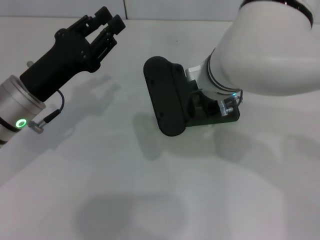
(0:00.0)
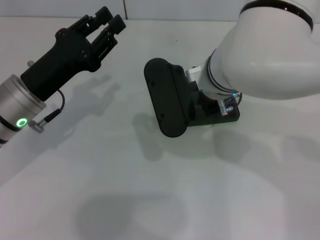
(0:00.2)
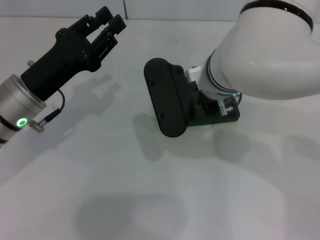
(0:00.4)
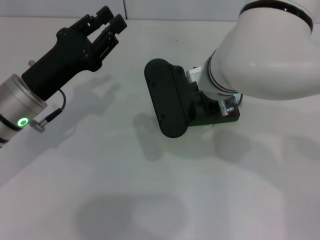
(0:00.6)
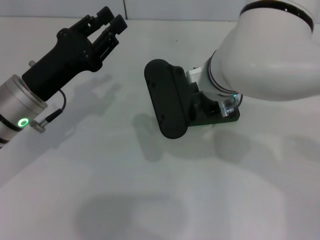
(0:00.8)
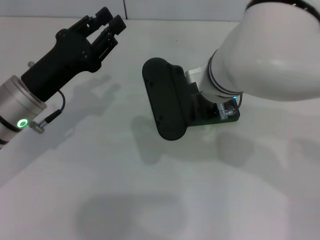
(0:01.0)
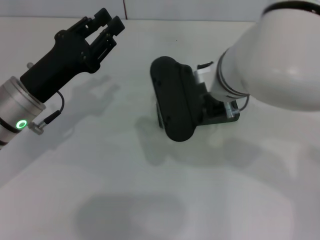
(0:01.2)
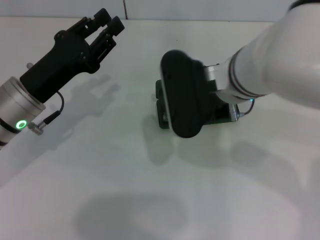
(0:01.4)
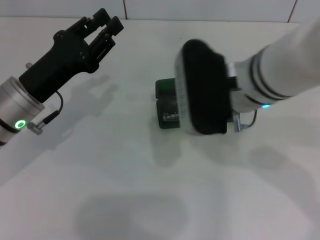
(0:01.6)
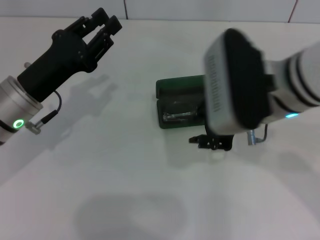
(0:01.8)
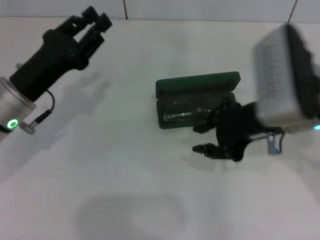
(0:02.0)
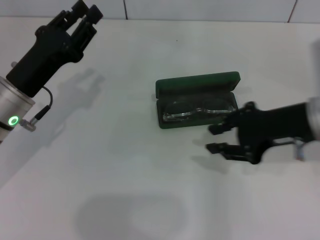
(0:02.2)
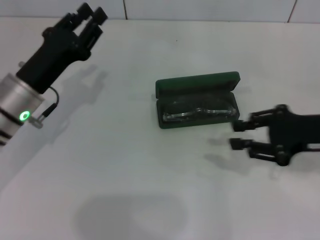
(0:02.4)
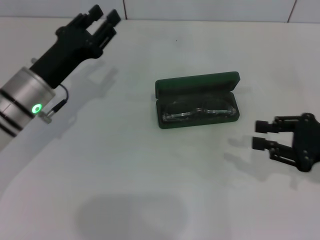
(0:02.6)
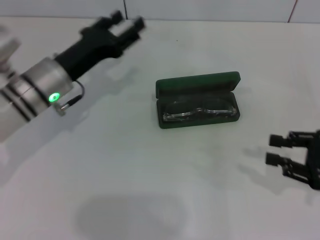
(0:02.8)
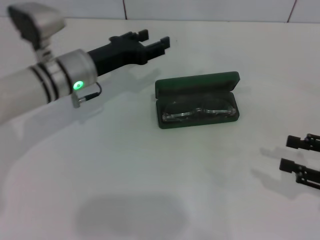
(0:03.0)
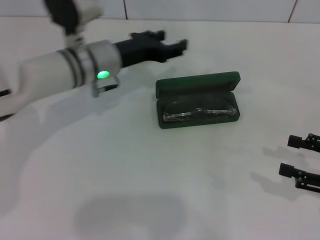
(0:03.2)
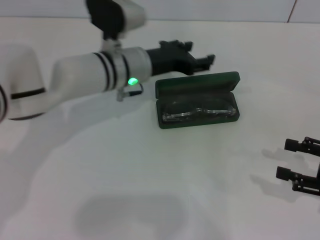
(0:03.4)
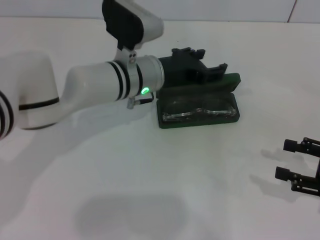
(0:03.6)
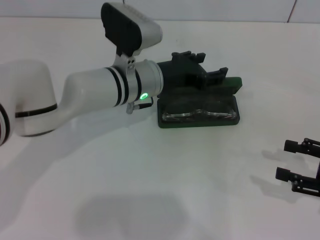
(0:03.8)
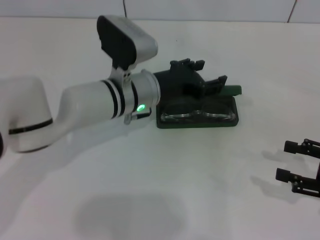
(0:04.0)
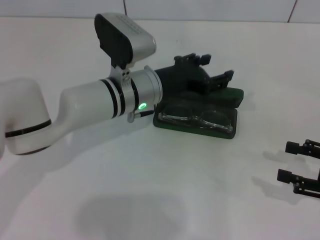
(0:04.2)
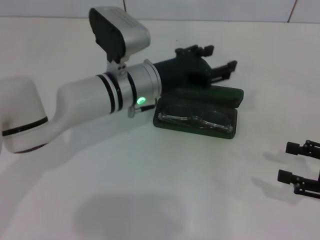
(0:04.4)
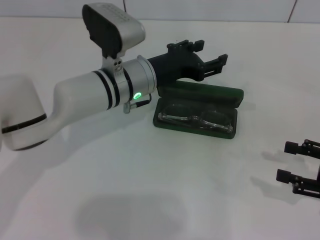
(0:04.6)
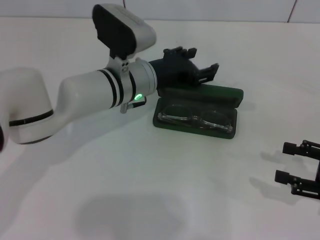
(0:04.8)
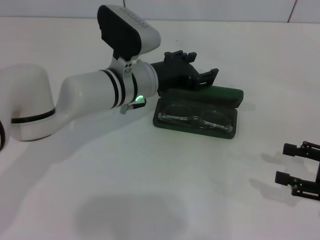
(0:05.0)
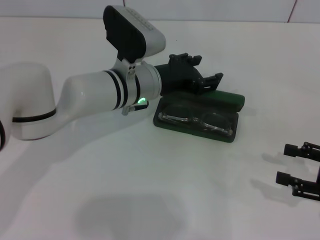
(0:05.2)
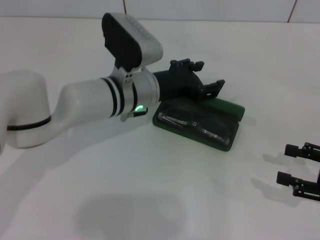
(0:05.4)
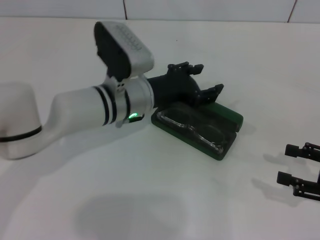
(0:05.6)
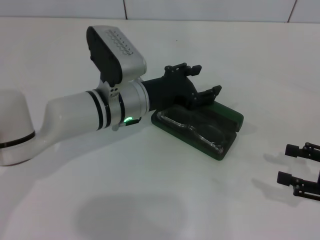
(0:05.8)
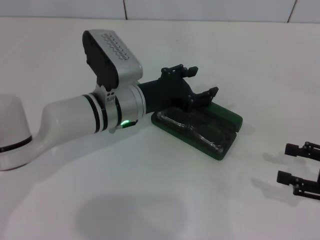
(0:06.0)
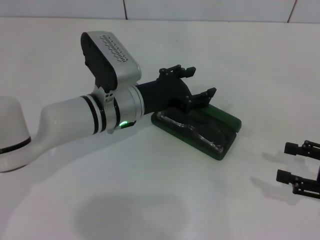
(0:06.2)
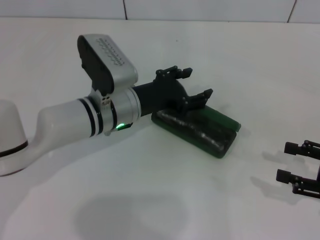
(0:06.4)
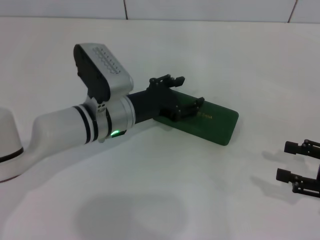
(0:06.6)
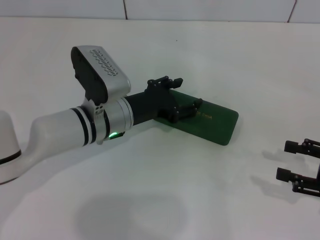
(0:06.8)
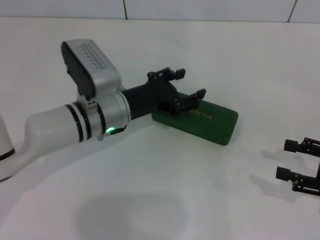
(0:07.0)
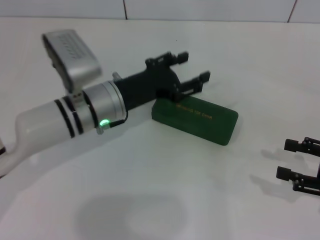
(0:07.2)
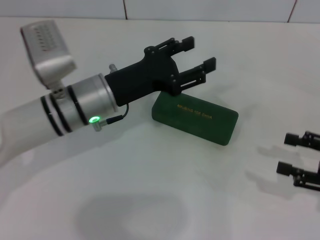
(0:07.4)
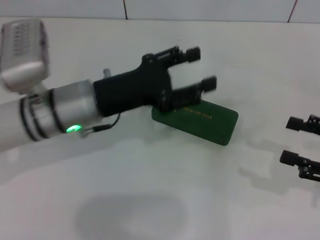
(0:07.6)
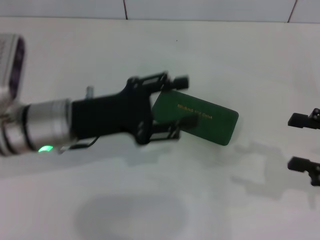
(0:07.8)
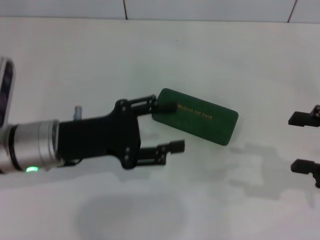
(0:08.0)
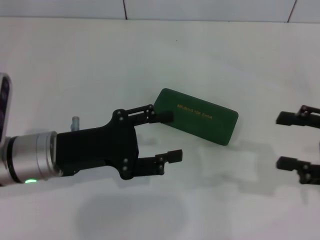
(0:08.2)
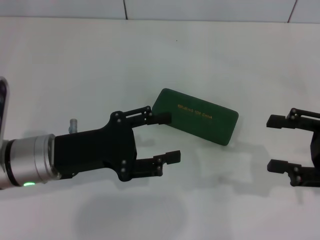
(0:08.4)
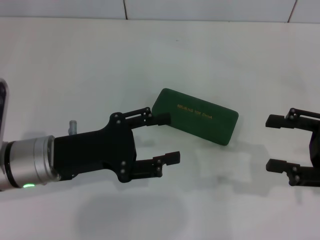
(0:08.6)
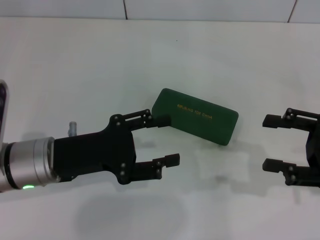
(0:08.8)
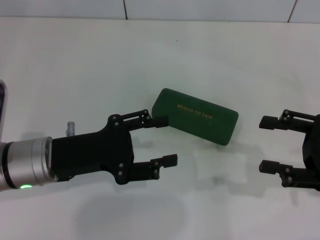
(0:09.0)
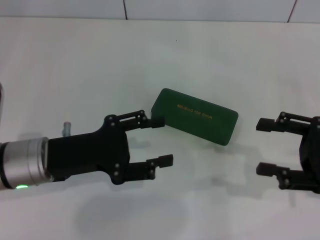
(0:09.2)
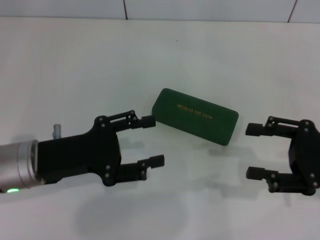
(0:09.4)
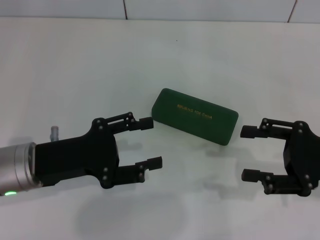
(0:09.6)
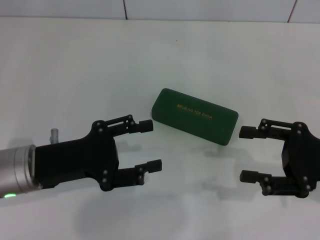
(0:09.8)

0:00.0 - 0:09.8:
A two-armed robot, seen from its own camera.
Step, 0:01.0 - 0:06.4: Close the glasses case with your left hand.
0:00.0 - 0:01.4: The grippers move only a little.
0:01.4 - 0:02.8: The right gripper travels to the right and downward by roughly 30 cm; the left gripper is displaced forward by some 5 cm.
0:02.8 - 0:04.2: The left gripper goes about 10 cm to the right, while the right gripper opens its fingers.
0:04.2 - 0:07.0: The grippers stay close to where they were, moving slightly.
0:07.0 - 0:08.4: The left gripper travels to the left and backward by some 10 cm, while the right gripper is displaced upward by approximately 5 cm.
0:08.4 - 0:09.8: The grippers make only small movements.

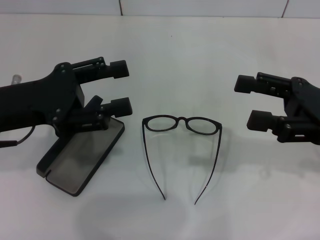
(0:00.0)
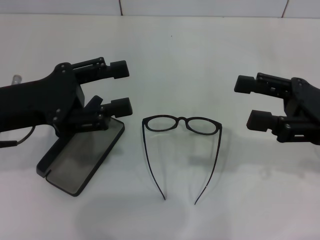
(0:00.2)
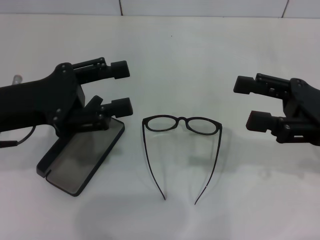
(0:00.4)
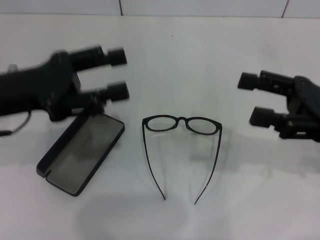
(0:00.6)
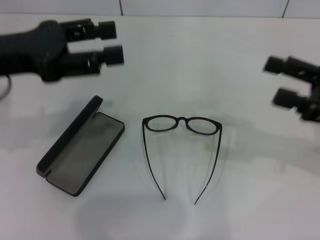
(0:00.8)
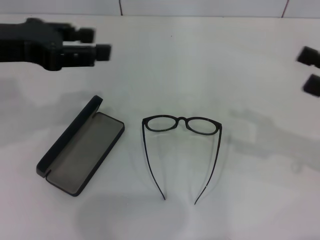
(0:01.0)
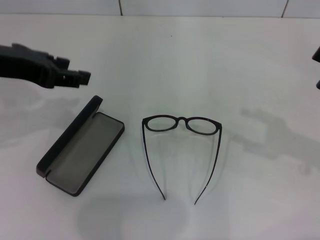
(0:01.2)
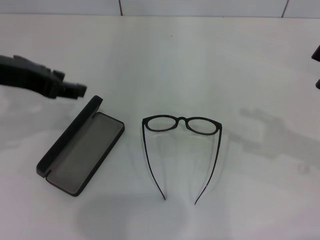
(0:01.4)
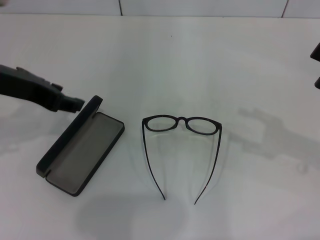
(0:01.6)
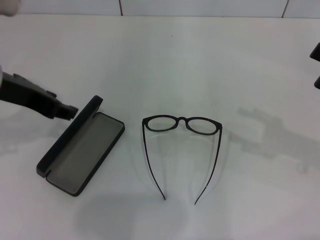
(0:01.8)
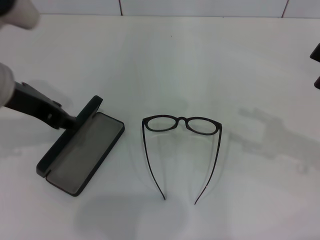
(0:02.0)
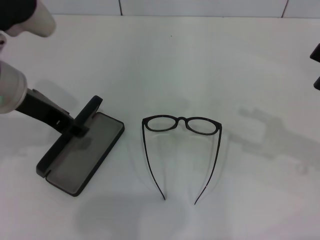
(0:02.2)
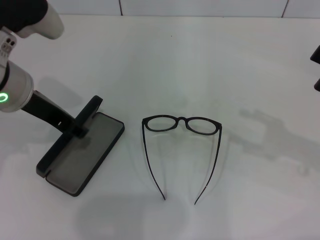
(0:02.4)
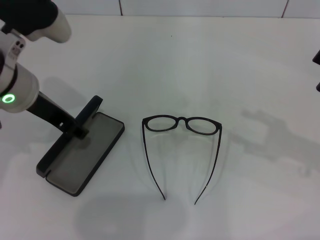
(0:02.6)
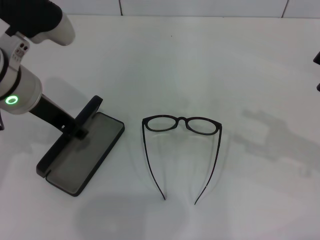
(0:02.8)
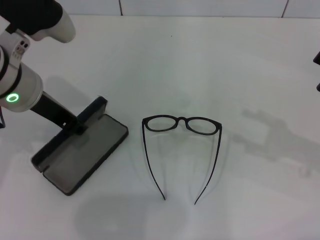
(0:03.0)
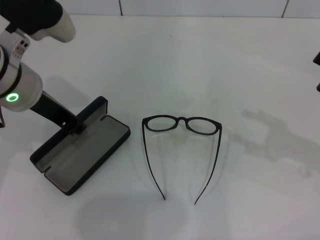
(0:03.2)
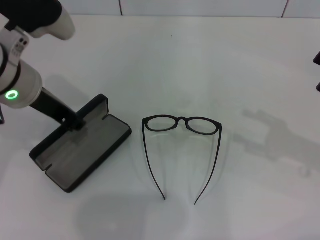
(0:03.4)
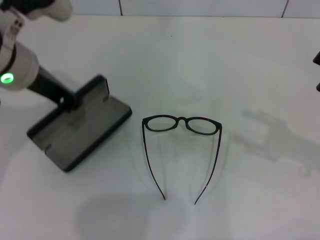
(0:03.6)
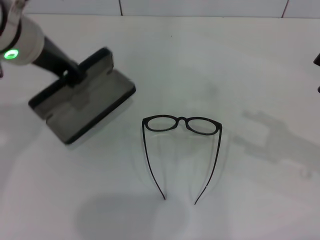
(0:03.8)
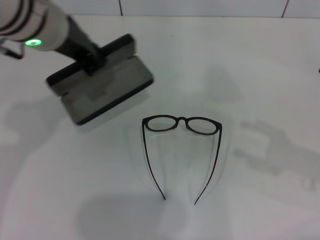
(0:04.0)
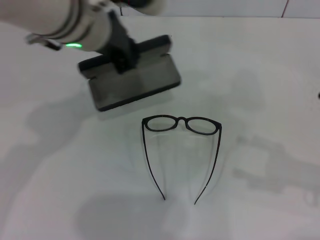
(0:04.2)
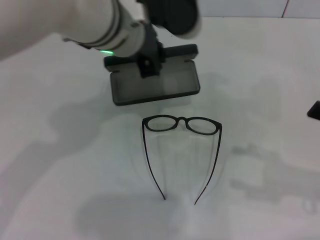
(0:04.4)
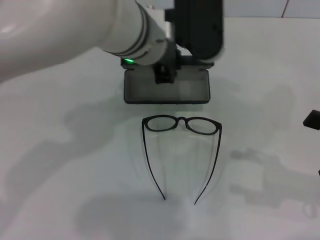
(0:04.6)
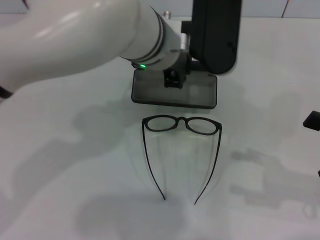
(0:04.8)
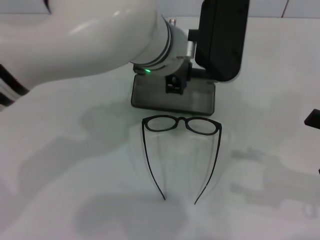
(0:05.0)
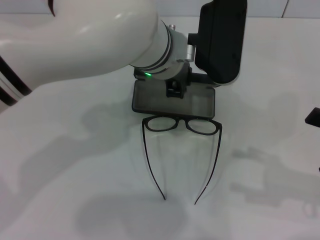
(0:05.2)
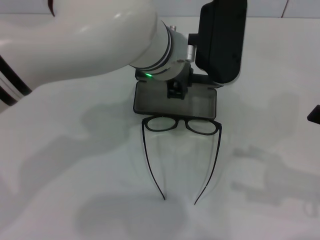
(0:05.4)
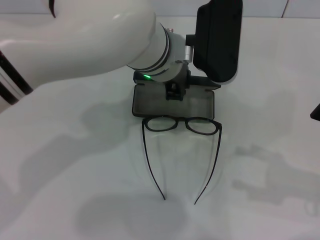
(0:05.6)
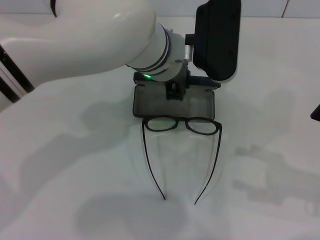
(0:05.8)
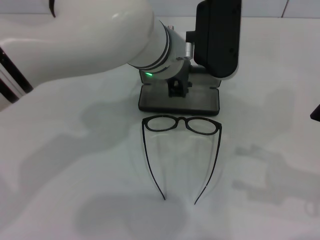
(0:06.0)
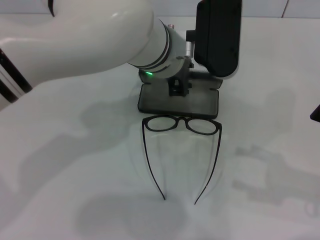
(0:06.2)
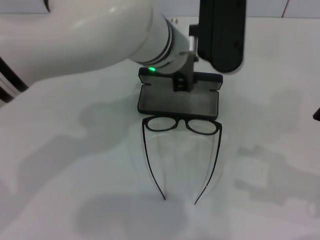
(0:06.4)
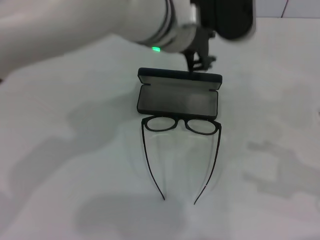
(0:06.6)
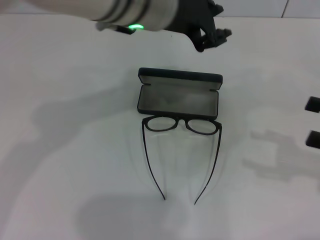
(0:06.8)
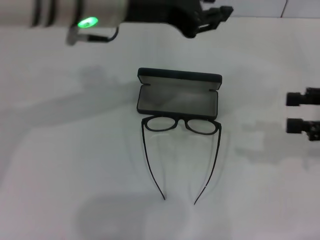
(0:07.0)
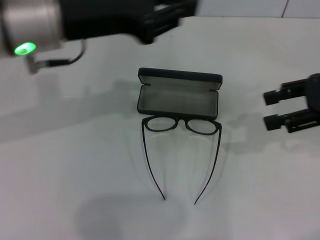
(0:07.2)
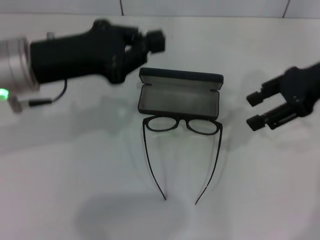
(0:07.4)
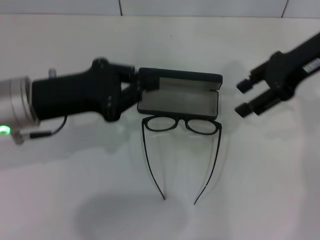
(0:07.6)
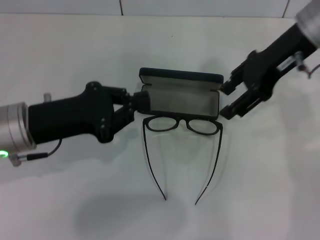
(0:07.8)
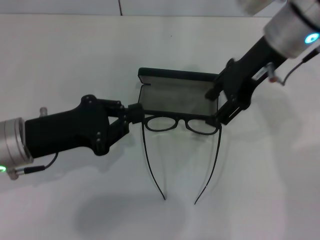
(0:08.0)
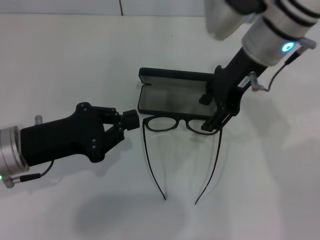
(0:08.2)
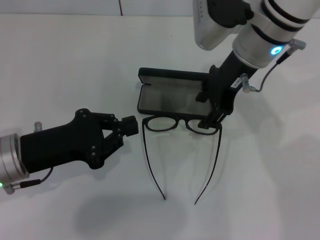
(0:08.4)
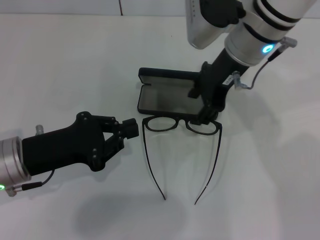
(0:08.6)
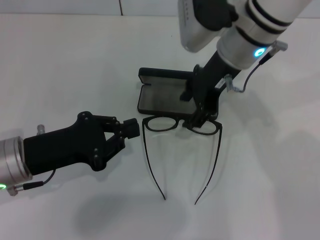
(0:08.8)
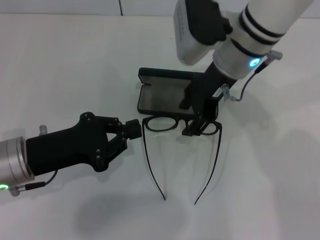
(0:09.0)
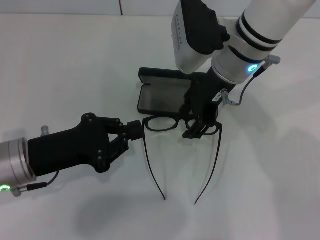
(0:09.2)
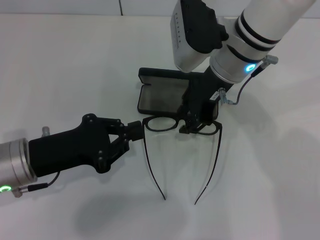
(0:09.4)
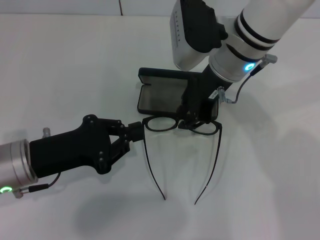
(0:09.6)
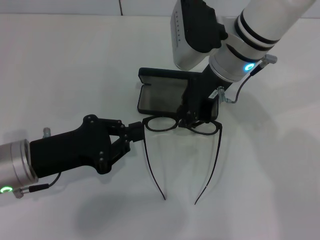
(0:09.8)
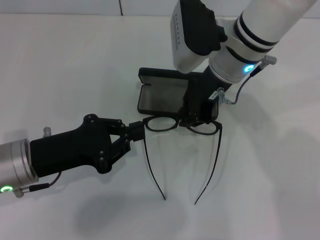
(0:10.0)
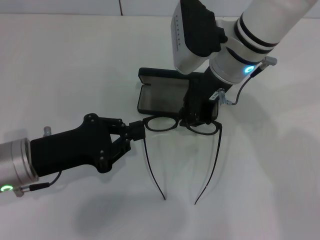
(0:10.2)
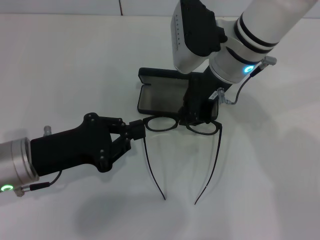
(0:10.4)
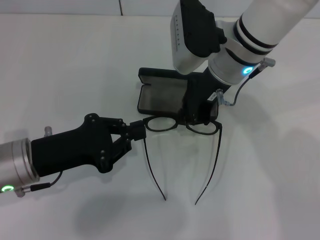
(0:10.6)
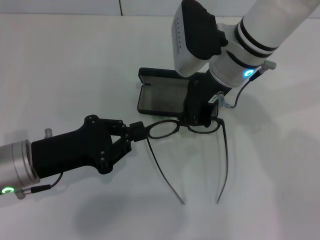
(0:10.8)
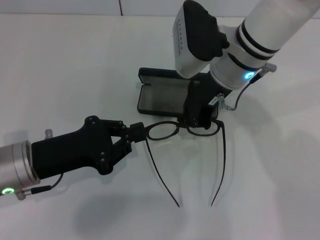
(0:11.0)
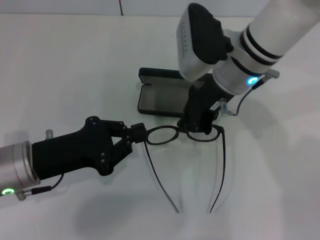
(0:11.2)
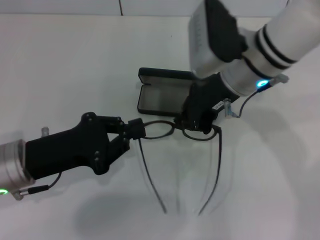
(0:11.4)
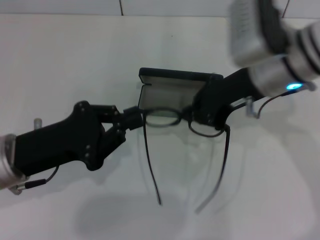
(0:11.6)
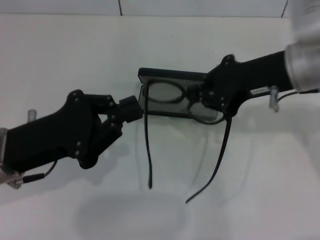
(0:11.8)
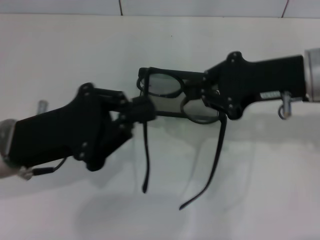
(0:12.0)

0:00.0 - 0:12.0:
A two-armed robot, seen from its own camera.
Step, 0:00.0 - 0:03.2: Grab the glasses case with your left hand.
Step, 0:03.4 - 0:06.2: Place the glasses case in the center of the table with your left hand.
Step, 0:06.4 - 0:10.8: Grab the eyeglass frame with your right hand.
0:00.0 - 0:01.6: The left gripper moves upward, roughly 10 cm; the right gripper shifts about 5 cm to the right.
0:01.6 - 0:03.0: The left gripper moves some 5 cm.
0:03.0 - 0:04.4: The left gripper is displaced to the right by roughly 15 cm.
0:04.4 - 0:06.0: The left gripper moves roughly 5 cm.
0:06.0 - 0:07.6: The right gripper heads forward, upward and to the left, covering some 25 cm. The left gripper moves to the left, about 20 cm.
0:07.6 - 0:09.0: The right gripper travels to the left by some 15 cm, while the left gripper goes roughly 5 cm downward.
0:09.0 - 0:10.4: The right gripper closes.
0:10.4 - 0:12.0: The right gripper is displaced to the right and backward by some 15 cm. The left gripper shifts by about 5 cm.
